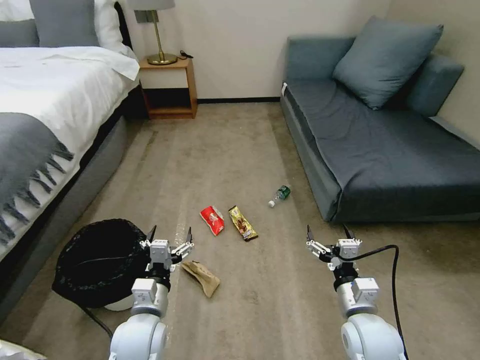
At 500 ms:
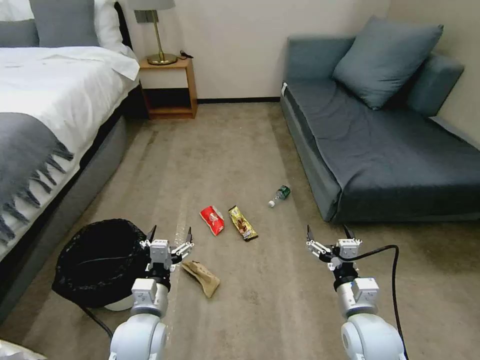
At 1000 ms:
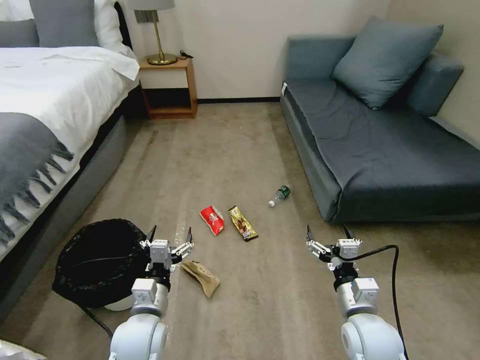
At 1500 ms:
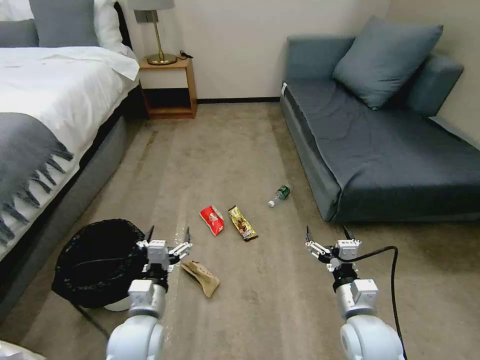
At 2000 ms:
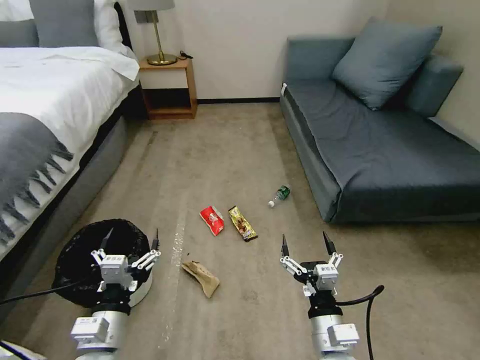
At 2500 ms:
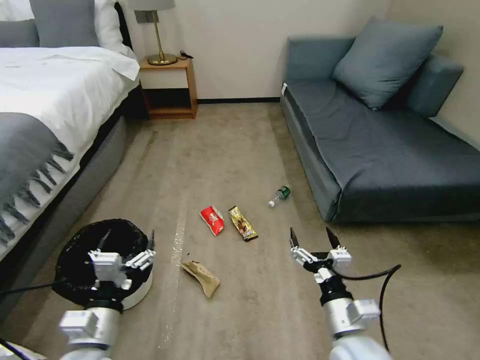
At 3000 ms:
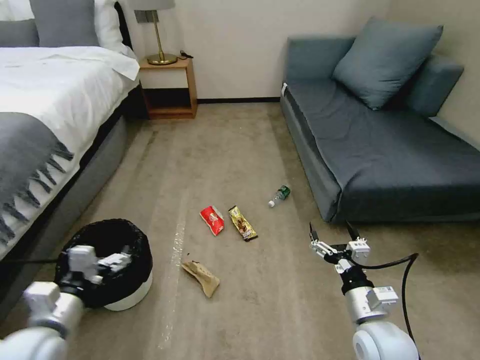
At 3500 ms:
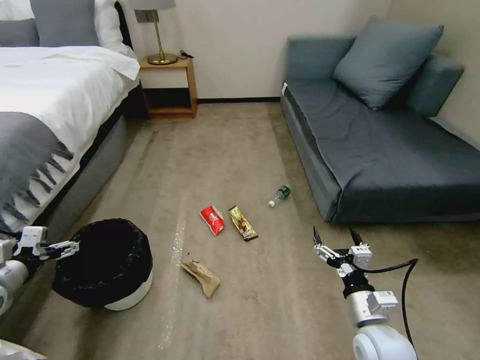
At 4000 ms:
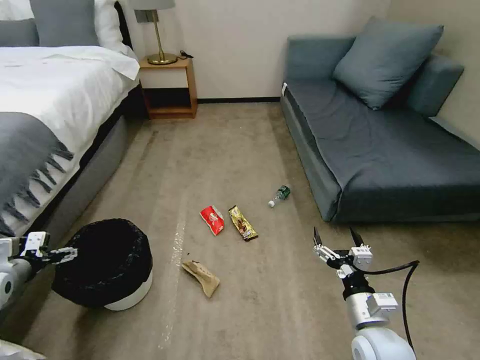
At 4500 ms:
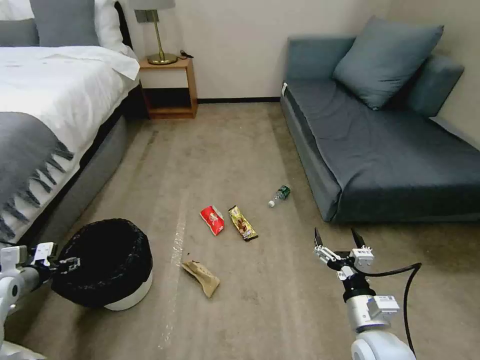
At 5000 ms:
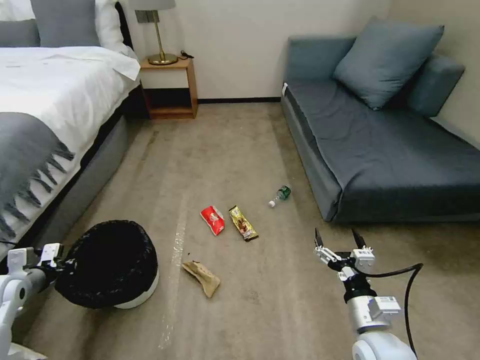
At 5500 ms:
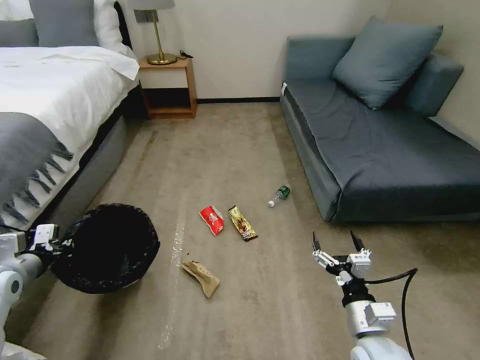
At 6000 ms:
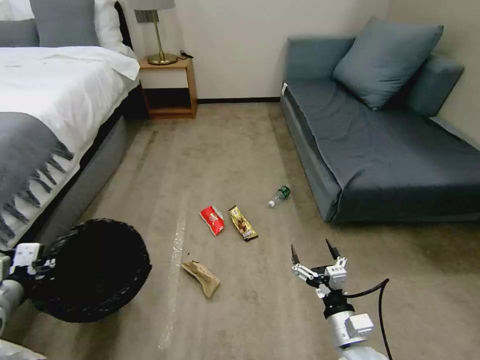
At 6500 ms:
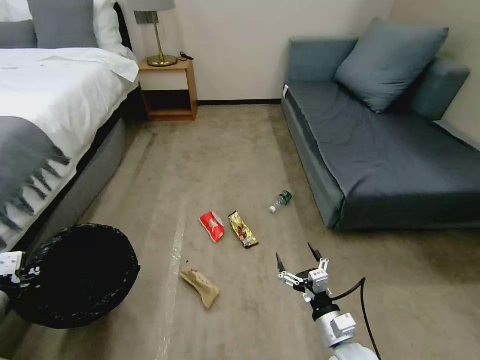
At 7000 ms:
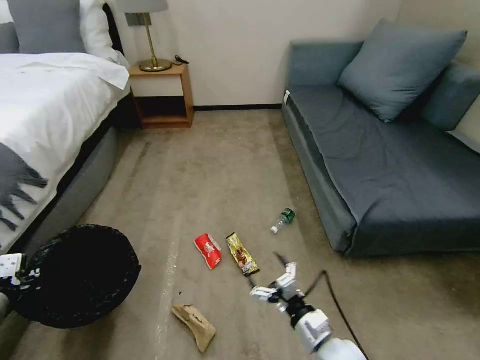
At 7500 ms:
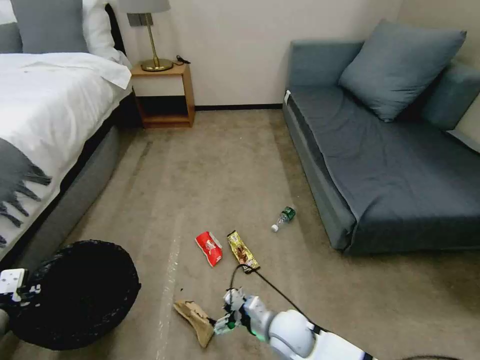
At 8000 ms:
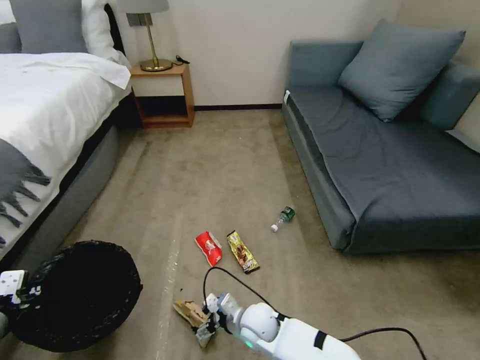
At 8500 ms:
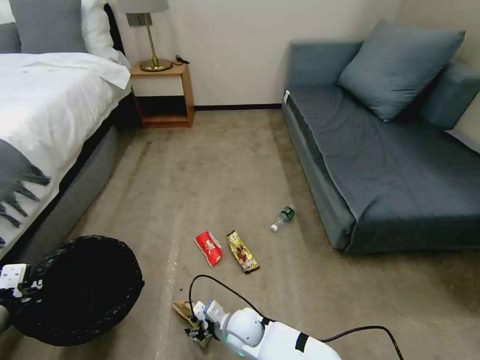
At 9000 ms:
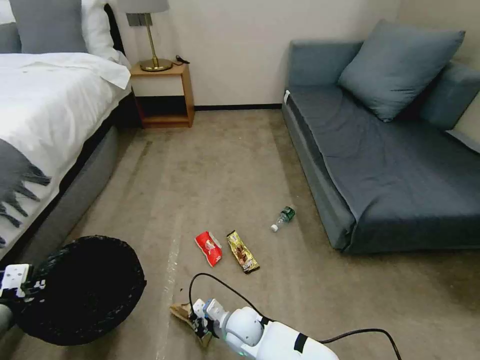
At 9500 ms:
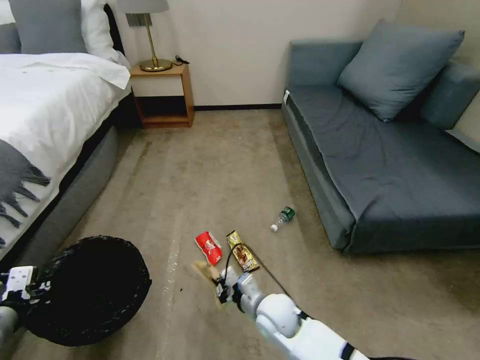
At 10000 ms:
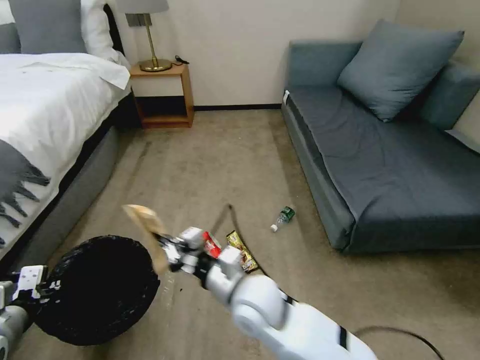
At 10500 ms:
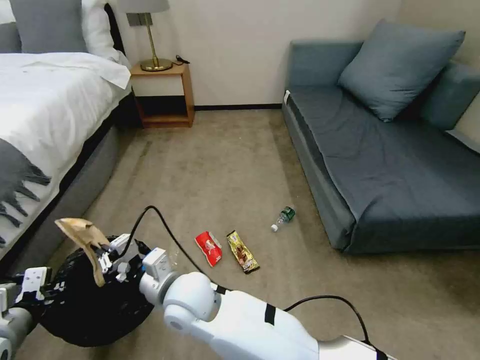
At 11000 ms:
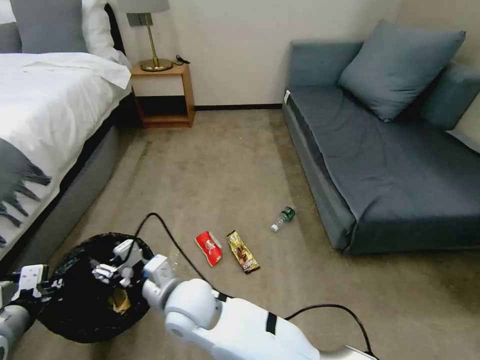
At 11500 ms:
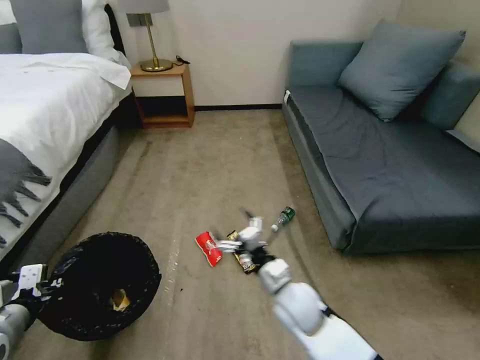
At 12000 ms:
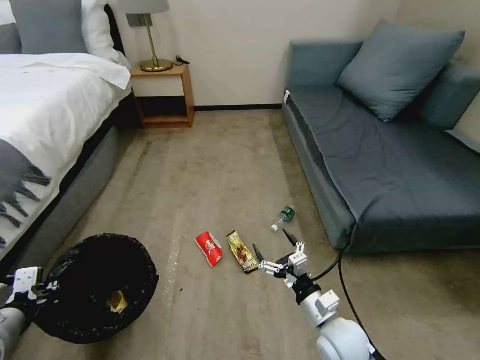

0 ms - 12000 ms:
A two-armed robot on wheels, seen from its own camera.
Task of the whole recording: Pick up the trash bin, then pick up the garbage on the floor and place it into the trash bin.
2000 ms - 4000 ms: The left gripper goes some 30 cm to the left and forward, while the right gripper travels to the right by about 10 cm.
4000 ms - 6000 ms: The left gripper moves to the right, backward and upward, approximately 15 cm, and closes its fingers; the right gripper shifts by about 5 cm.
6000 ms - 8000 ms: The right gripper heads to the left, forward and downward, covering approximately 25 cm.
8000 ms - 10000 ms: The right gripper is displaced upward by roughly 20 cm, and closes up.
10000 ms - 12000 ms: The right gripper heads to the right and downward, covering about 20 cm, and opens up.

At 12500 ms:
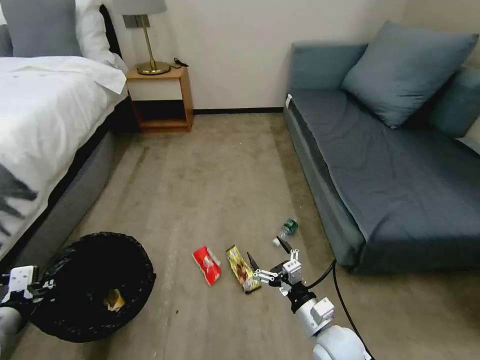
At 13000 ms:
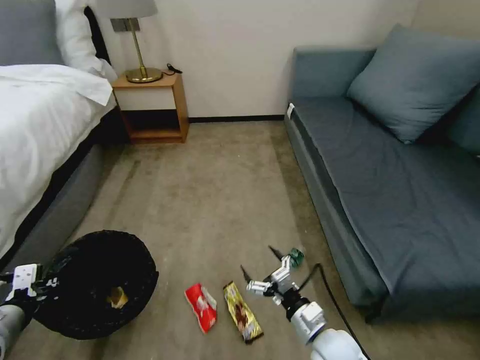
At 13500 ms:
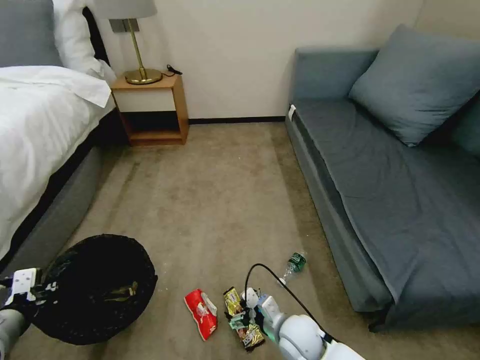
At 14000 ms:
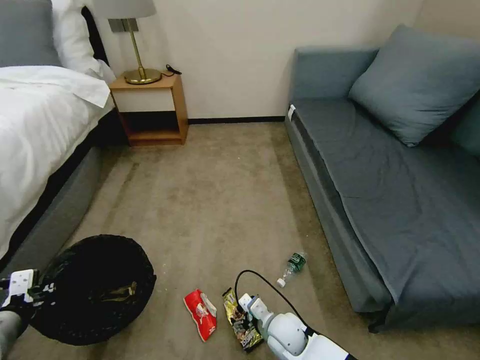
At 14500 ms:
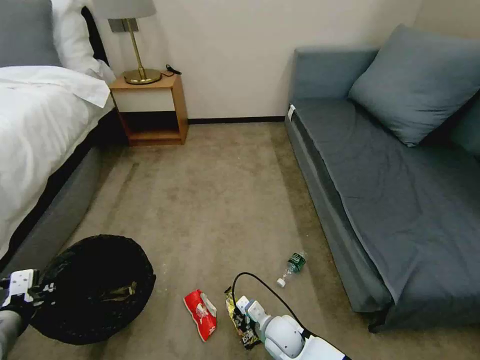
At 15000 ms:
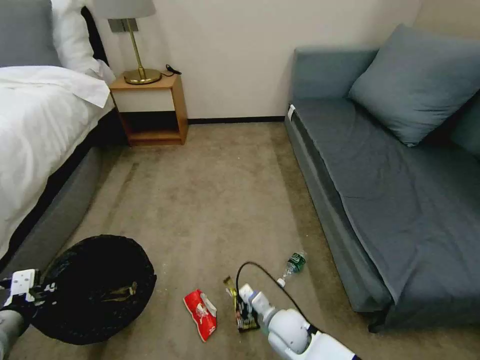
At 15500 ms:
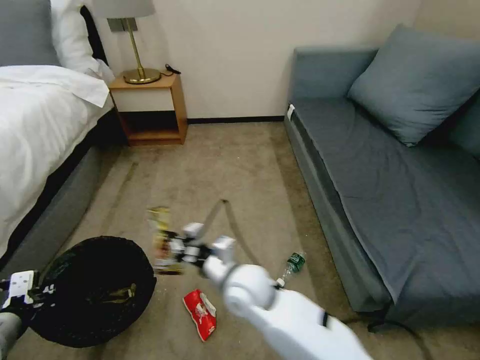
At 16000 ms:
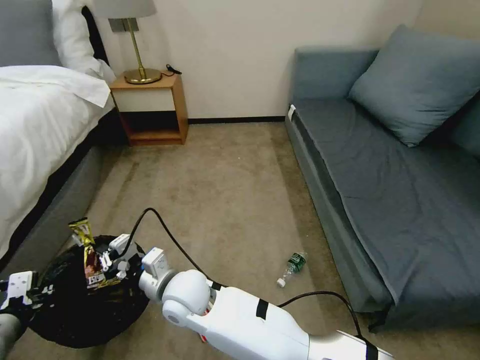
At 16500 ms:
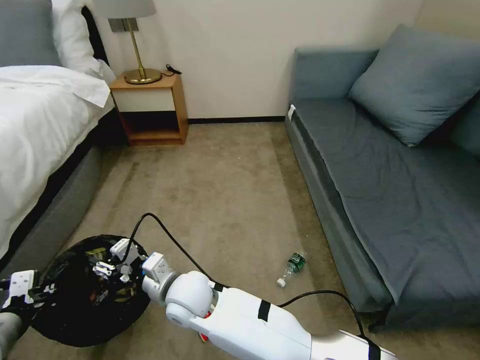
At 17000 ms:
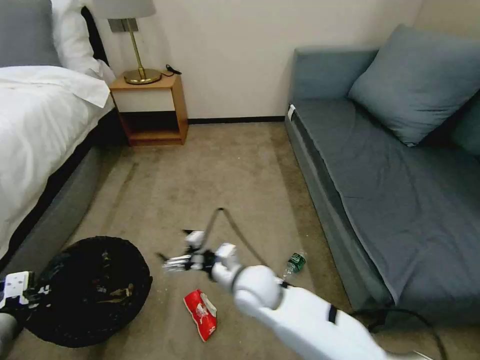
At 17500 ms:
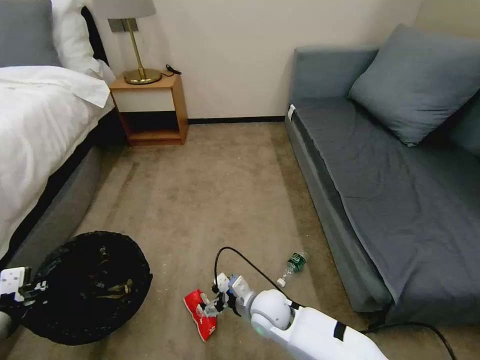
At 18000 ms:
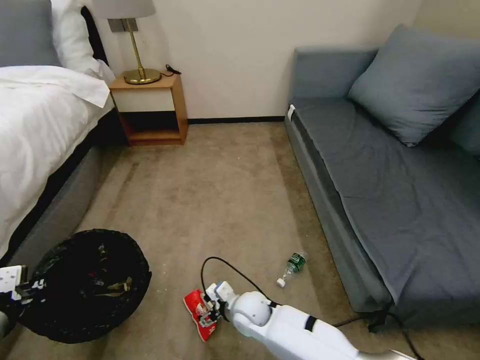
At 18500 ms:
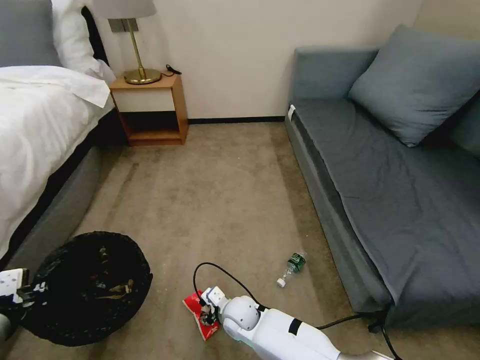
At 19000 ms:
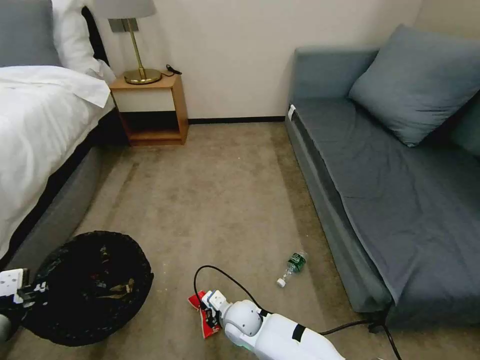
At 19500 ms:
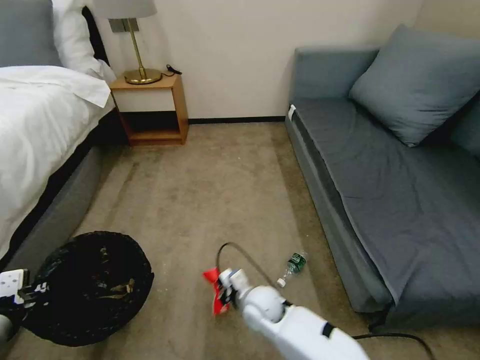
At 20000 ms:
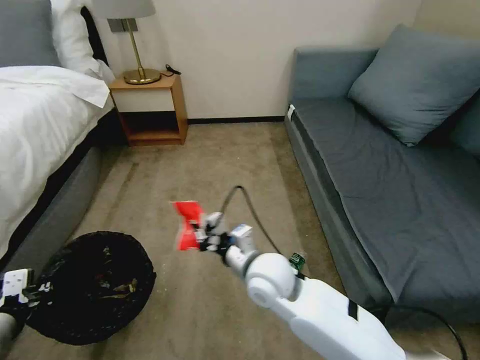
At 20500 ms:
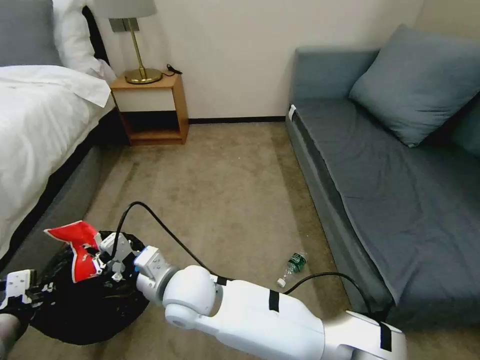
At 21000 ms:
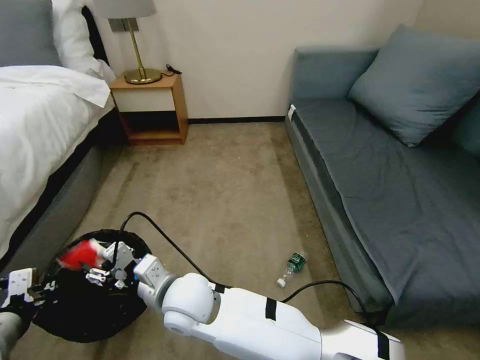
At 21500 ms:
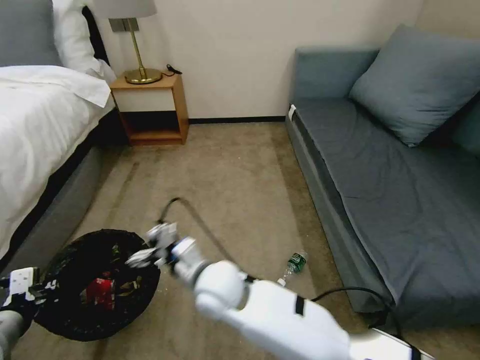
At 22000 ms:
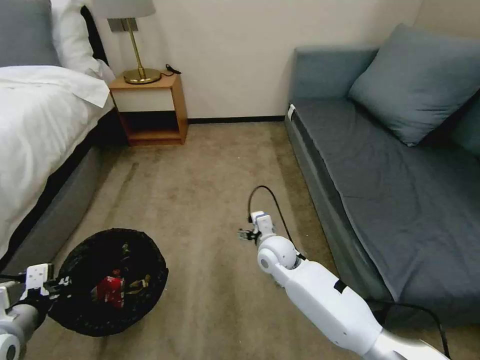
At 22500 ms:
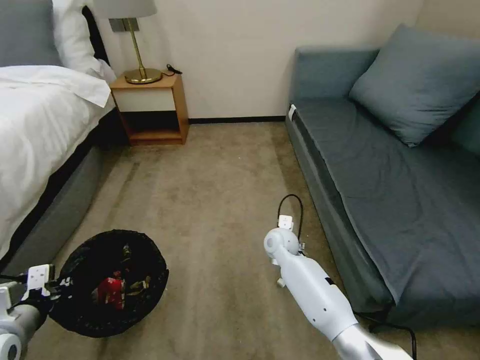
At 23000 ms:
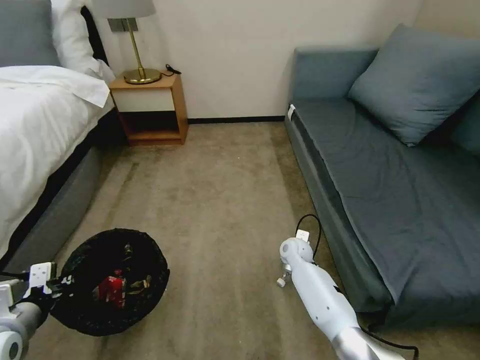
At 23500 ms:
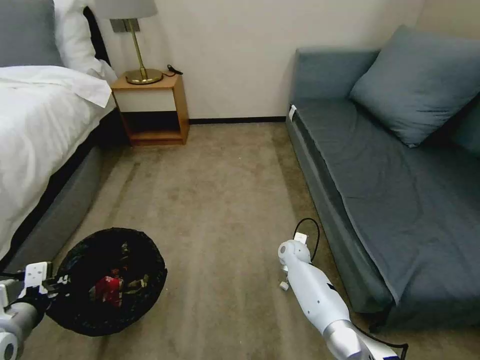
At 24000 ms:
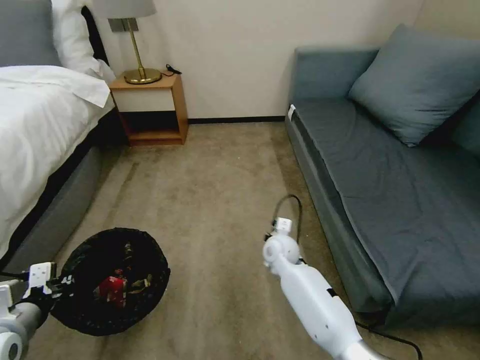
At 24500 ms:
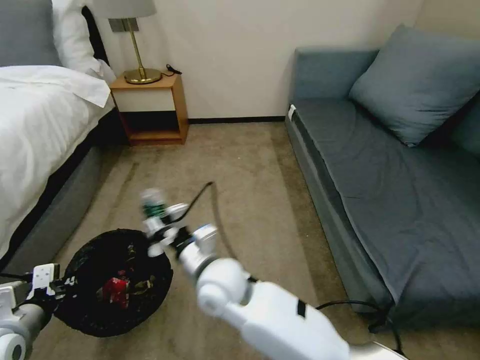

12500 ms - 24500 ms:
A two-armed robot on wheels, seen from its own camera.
Task of the whole recording: Pick up the trash bin, then pick up the garbage on the floor and place it into the trash bin.
12500 ms - 14500 ms: The right gripper travels downward and to the left by some 15 cm, and closes its fingers.
14500 ms - 16500 ms: The right gripper shifts approximately 30 cm to the left and upward, and closes, then opens again.
16500 ms - 18500 ms: The right gripper moves downward and to the right, approximately 20 cm, and opens and closes again.
18500 ms - 20500 ms: The right gripper moves upward and to the left, some 25 cm, and closes.
20500 ms - 22500 ms: The right gripper is displaced to the right, forward and downward by some 30 cm, and opens its fingers.
22500 ms - 24500 ms: The right gripper moves backward, to the left and upward, approximately 25 cm, and closes its fingers.

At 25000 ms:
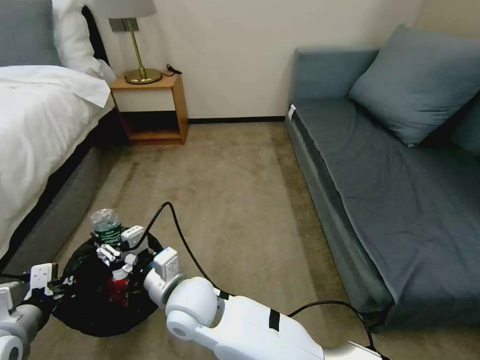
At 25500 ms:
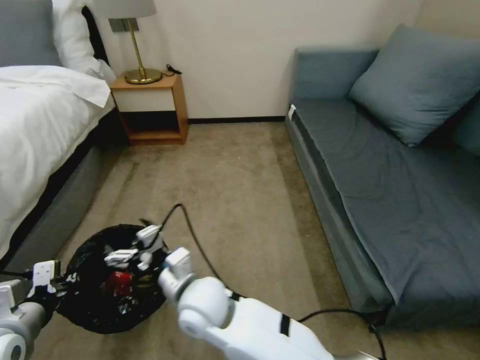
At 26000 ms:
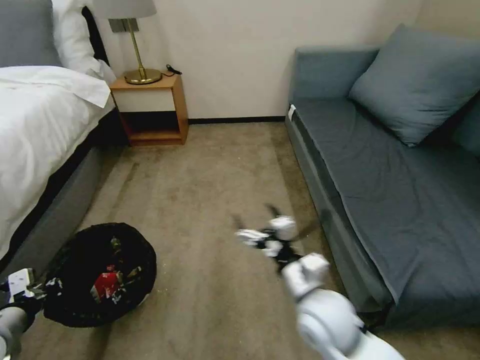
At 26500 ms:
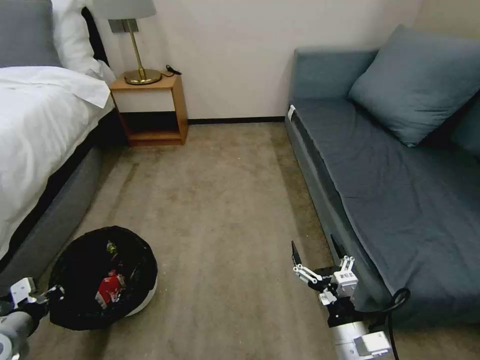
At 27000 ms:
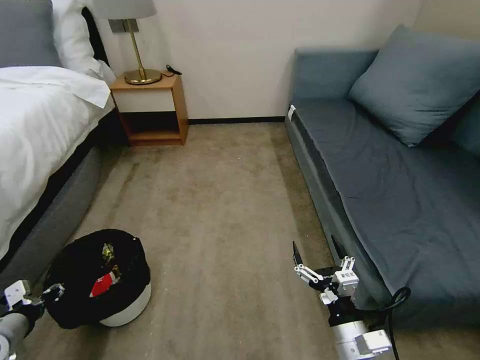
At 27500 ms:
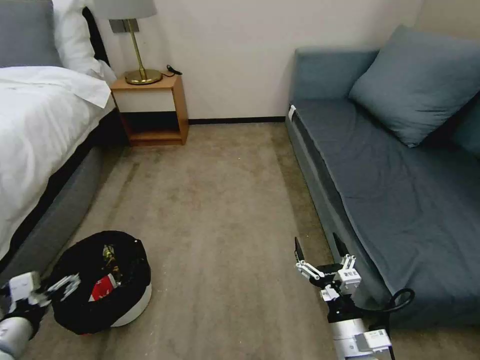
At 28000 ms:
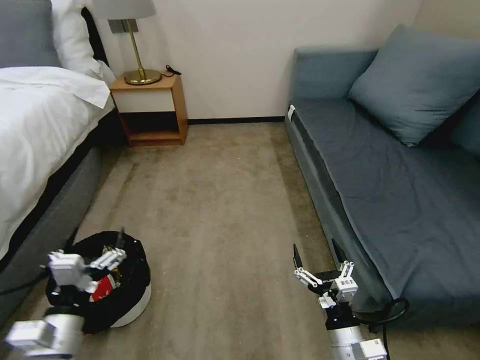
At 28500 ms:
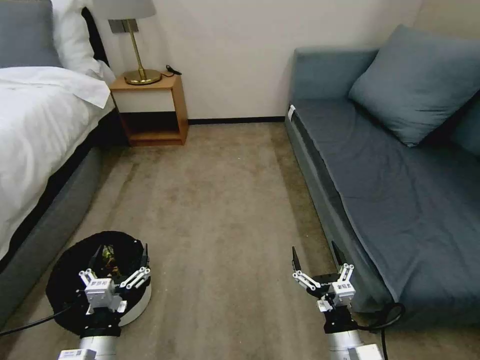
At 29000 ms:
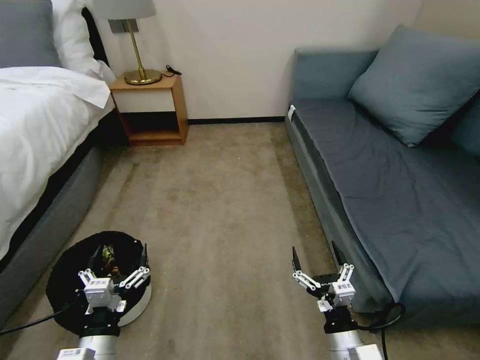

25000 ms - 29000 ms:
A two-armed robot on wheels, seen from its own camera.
Task of the whole recording: Pick up the trash bin, then pick up the garbage on the floor and place it into the trash bin.
25000 ms - 27000 ms: The right gripper is displaced to the right by roughly 35 cm, and opens. The left gripper is displaced to the left and downward by about 10 cm.
27000 ms - 29000 ms: The left gripper heads to the right, covering about 20 cm, and opens its fingers.
